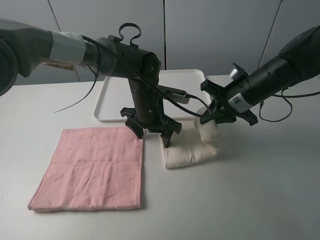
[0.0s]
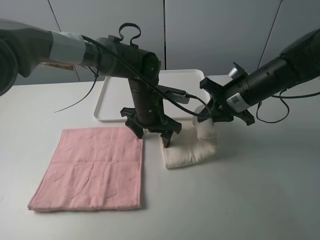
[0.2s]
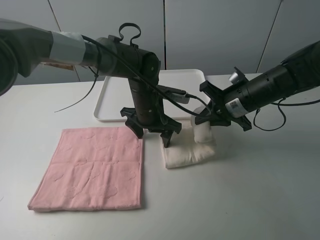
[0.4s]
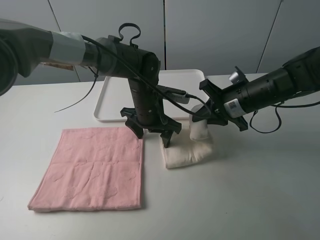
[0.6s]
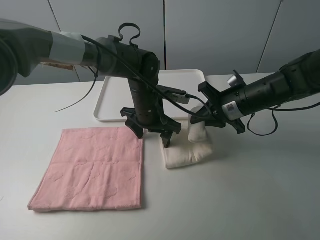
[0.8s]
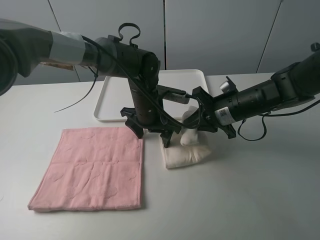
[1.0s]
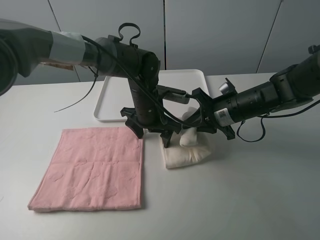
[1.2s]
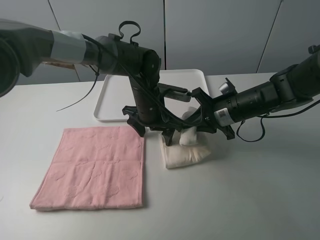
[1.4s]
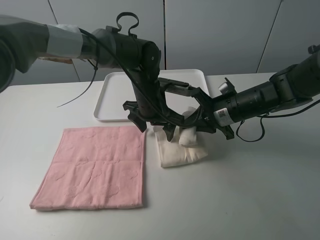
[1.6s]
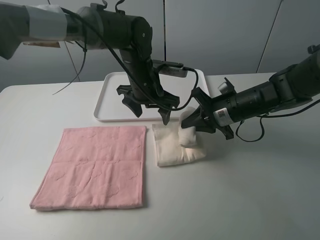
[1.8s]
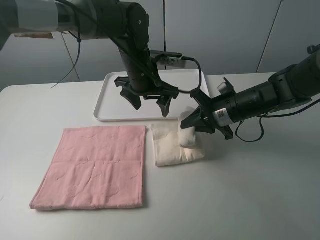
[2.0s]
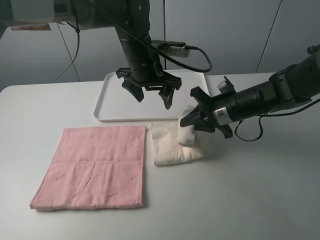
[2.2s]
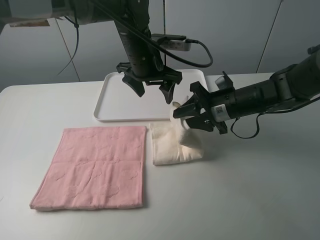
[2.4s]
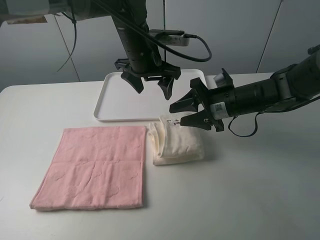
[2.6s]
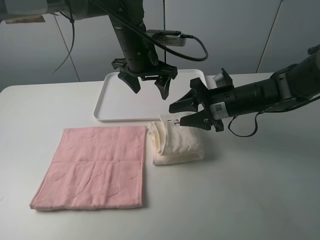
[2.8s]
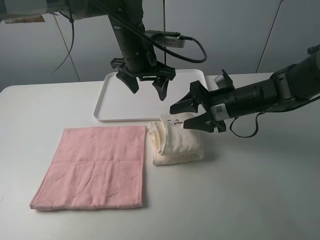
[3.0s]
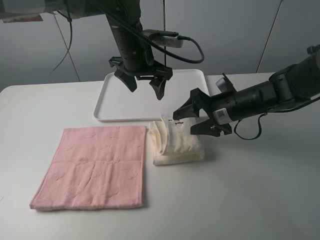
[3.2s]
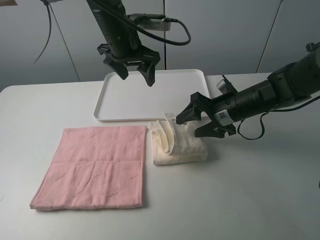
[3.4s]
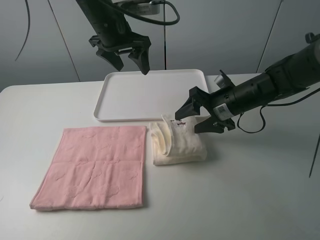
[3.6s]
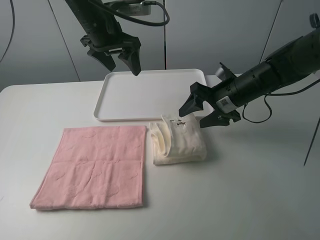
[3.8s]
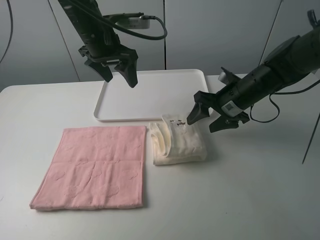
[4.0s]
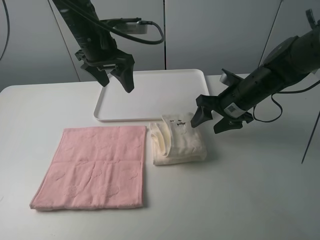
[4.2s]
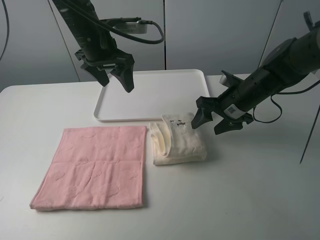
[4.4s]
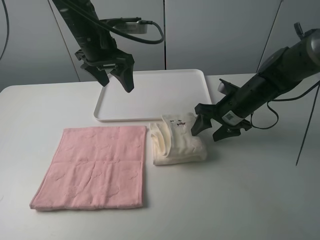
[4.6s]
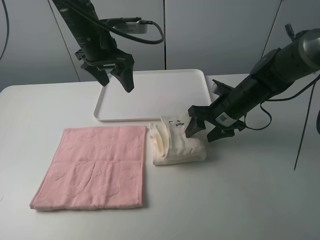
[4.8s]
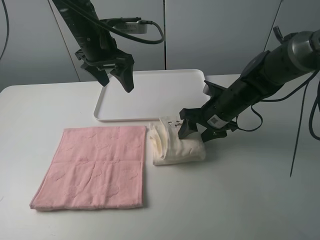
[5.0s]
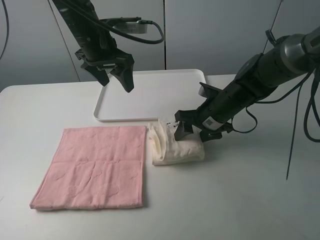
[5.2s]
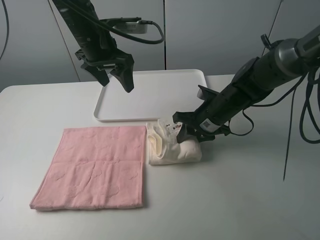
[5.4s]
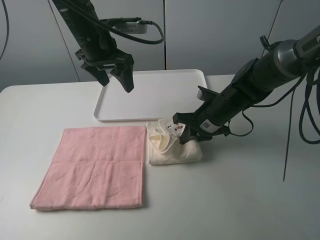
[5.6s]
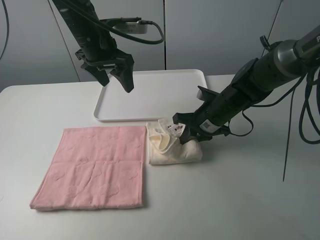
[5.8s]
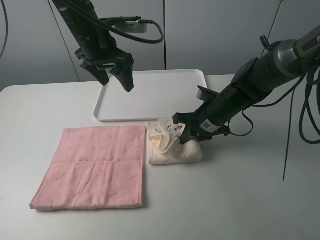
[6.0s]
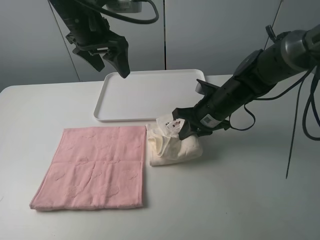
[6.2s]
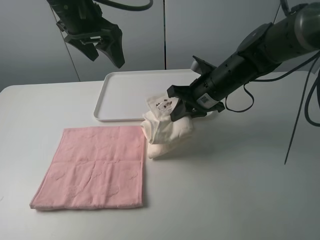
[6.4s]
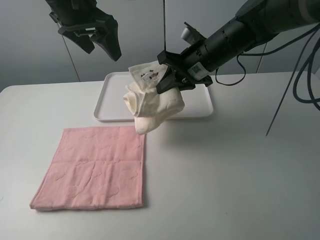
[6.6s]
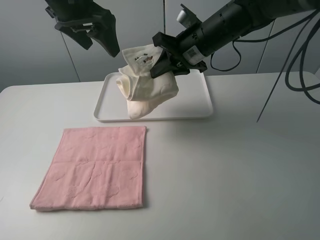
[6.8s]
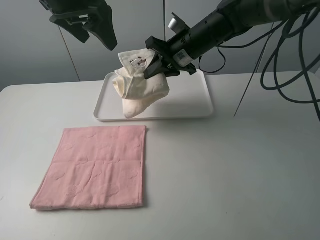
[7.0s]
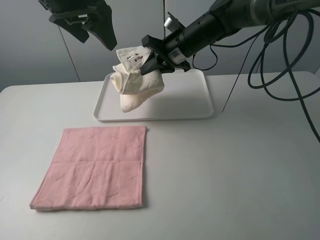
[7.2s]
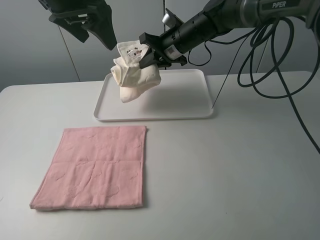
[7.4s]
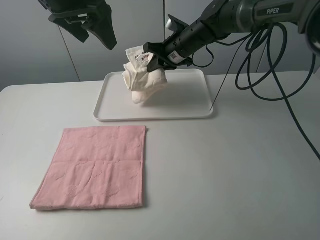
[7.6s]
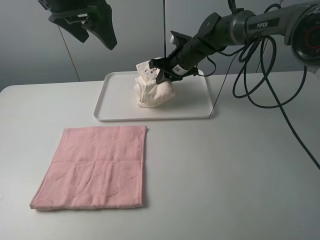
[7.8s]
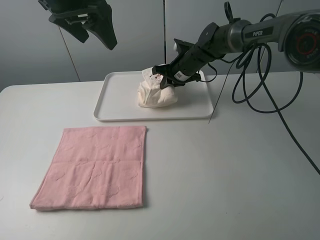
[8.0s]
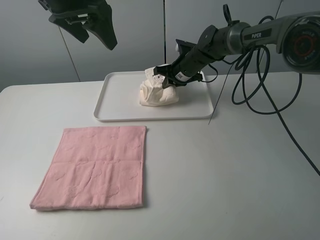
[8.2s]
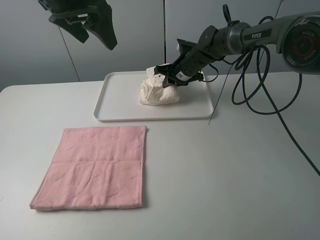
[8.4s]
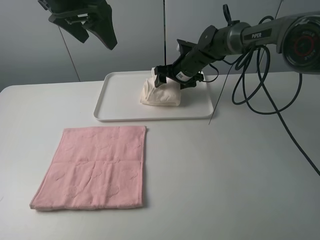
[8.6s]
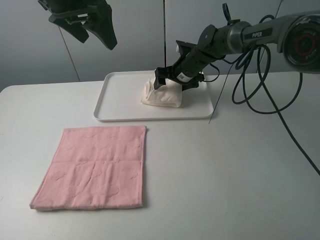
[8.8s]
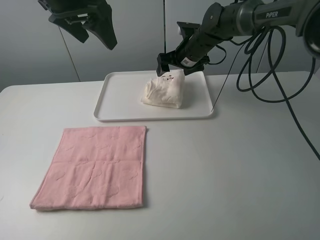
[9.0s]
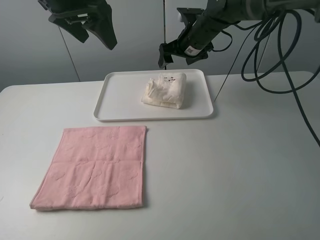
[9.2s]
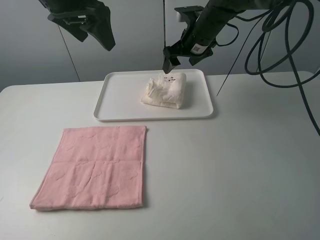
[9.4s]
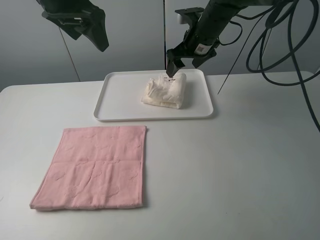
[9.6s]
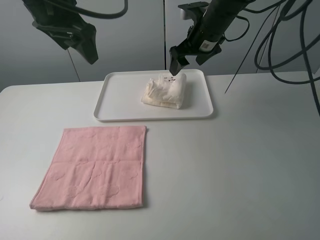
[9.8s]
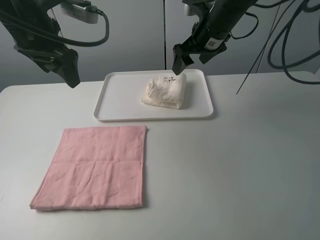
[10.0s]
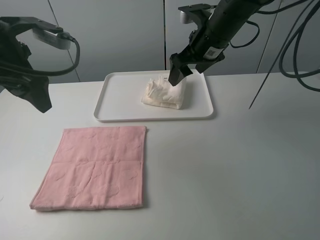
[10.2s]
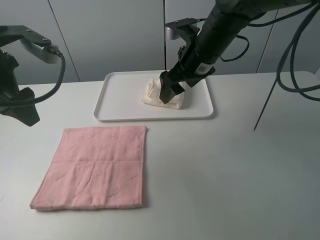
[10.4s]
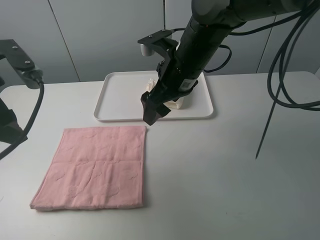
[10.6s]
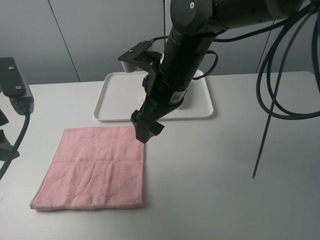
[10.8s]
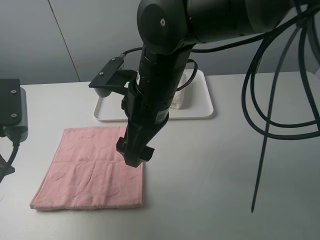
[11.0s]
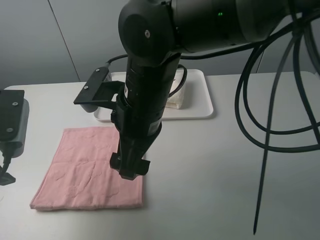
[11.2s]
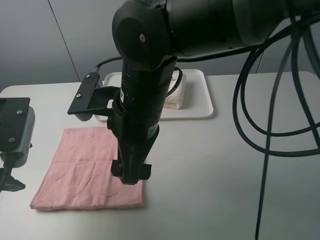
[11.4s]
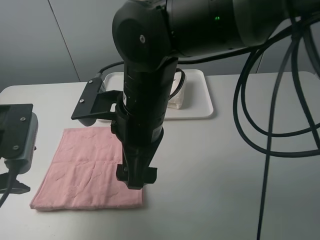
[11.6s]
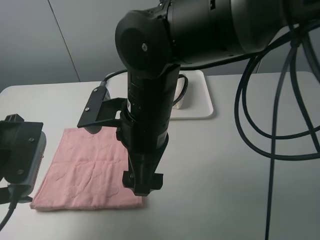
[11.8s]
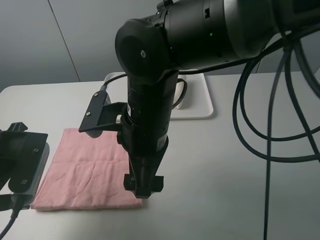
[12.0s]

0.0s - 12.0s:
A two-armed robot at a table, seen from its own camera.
Task of the whole recording: fold one of the towels by two grippers and place it on the tray,then fold another towel by two grippers and place it on the folded towel.
Step, 0.0s - 2.8s: Fold the white towel from right to left with right gripper.
Step, 3.0s - 5.6s: Grasp the white towel with the right gripper.
Step, 5.8s - 8.8s: Move the white towel to the plate with the right gripper.
0.0s - 1.6s: The grippers make only small movements.
1.6s - 3.0s: The right gripper opens. The left gripper shifts about 10 cm upward.
3.0s - 4.4s: The left gripper moves to the left, approximately 10 cm.
4.4s - 6.0s: The right gripper moves about 5 cm, and closes its fingers.
6.0s - 7.6s: The right gripper moves forward, upward and to the left, some 20 cm, while the left gripper shifts some 10 cm upward.
7.6s - 9.0s: The right gripper opens up.
9.0s - 10.4s: The right gripper heads backward, covering about 15 cm; the left gripper is displaced to the left, backward and downward by approximately 15 cm.
10.4s - 12.0s: The right gripper goes some 20 cm backward and to the left. The left gripper moves downward and backward, roughly 15 cm.

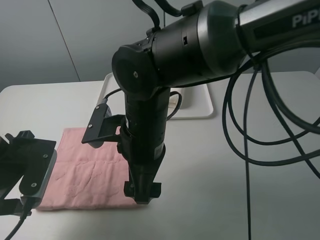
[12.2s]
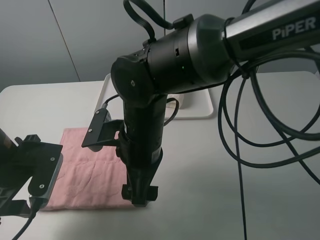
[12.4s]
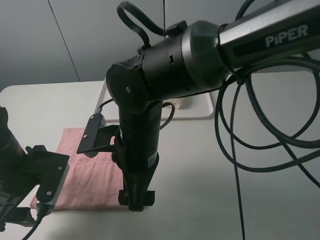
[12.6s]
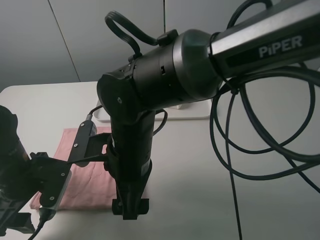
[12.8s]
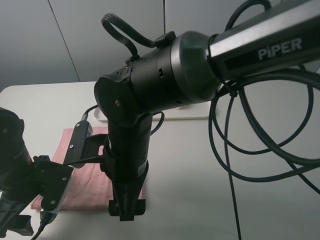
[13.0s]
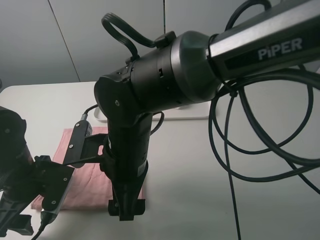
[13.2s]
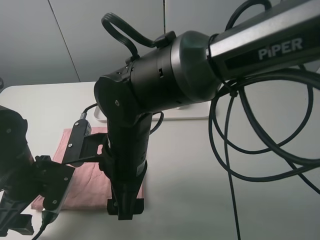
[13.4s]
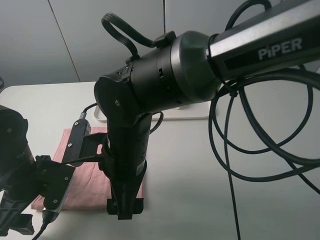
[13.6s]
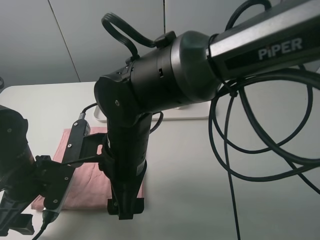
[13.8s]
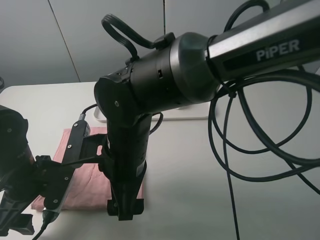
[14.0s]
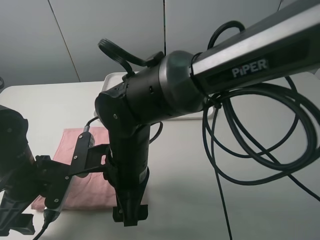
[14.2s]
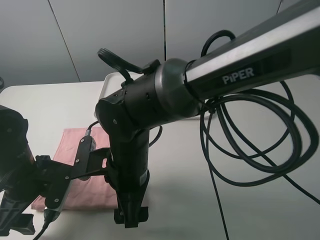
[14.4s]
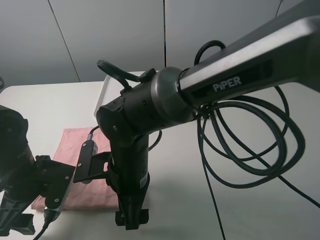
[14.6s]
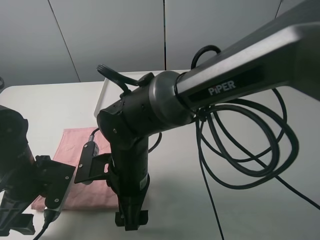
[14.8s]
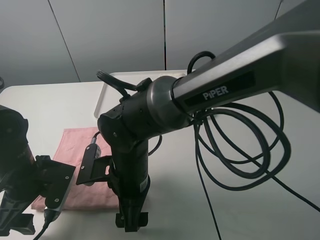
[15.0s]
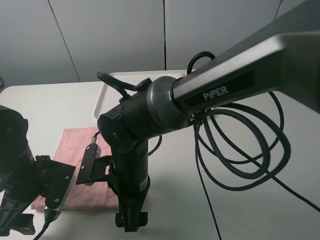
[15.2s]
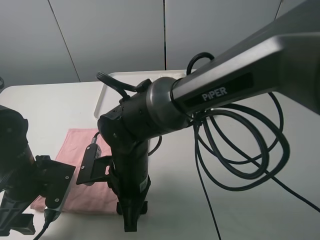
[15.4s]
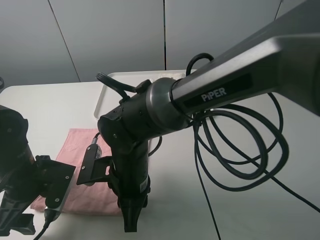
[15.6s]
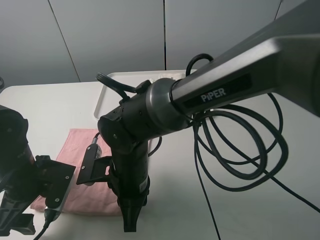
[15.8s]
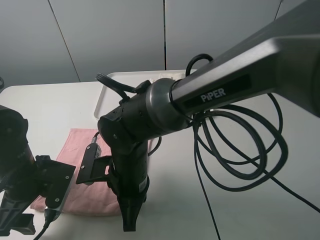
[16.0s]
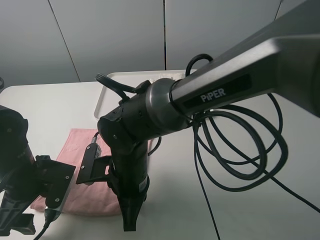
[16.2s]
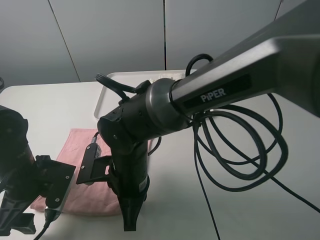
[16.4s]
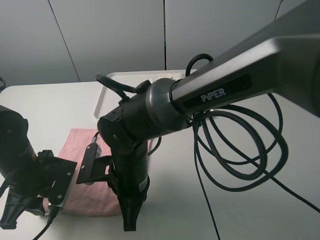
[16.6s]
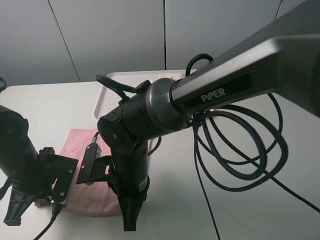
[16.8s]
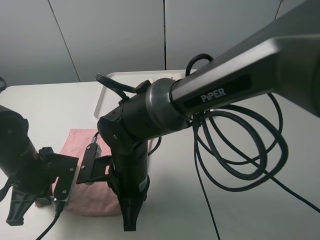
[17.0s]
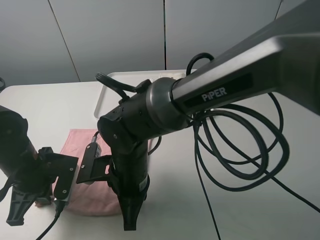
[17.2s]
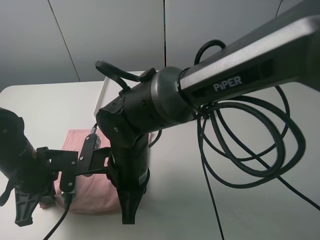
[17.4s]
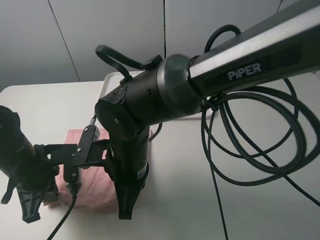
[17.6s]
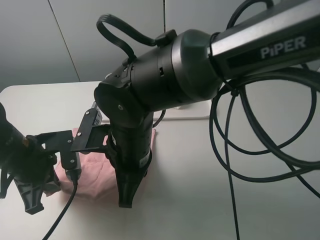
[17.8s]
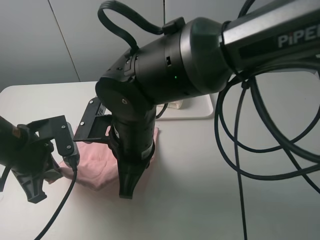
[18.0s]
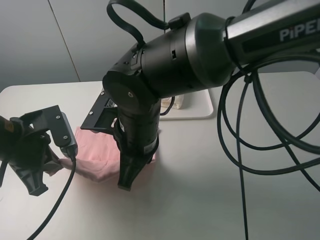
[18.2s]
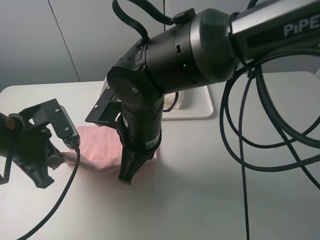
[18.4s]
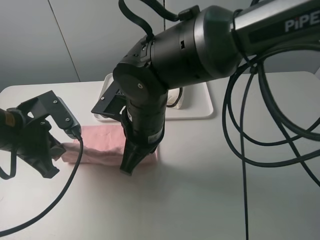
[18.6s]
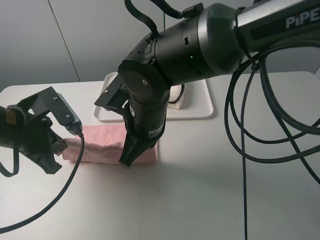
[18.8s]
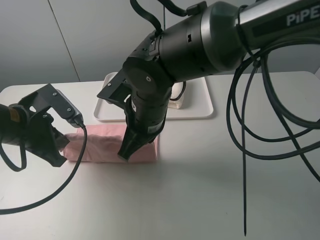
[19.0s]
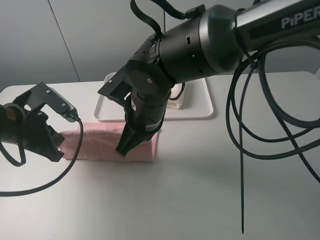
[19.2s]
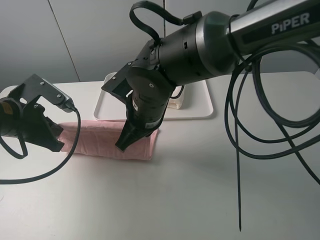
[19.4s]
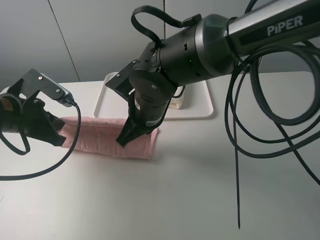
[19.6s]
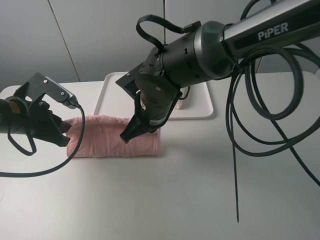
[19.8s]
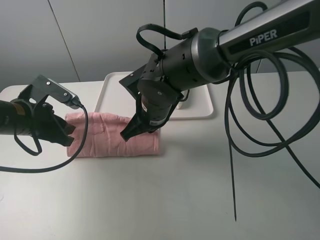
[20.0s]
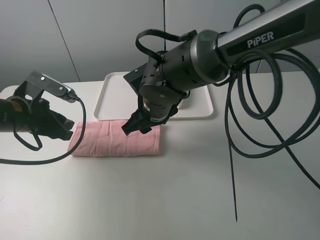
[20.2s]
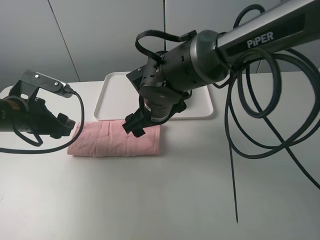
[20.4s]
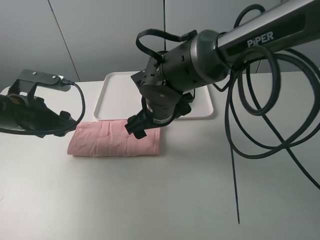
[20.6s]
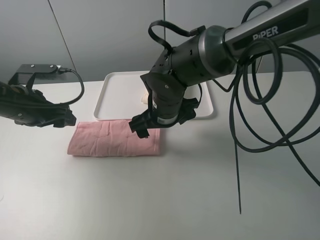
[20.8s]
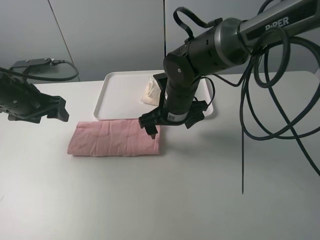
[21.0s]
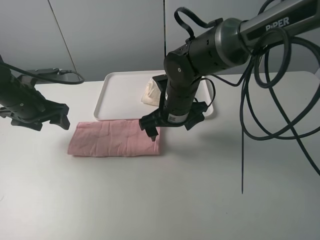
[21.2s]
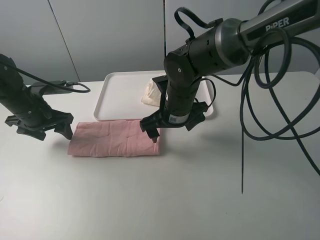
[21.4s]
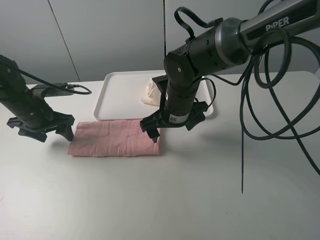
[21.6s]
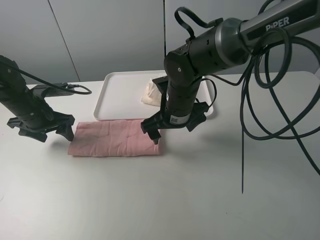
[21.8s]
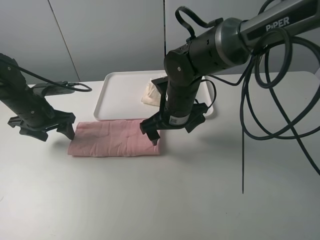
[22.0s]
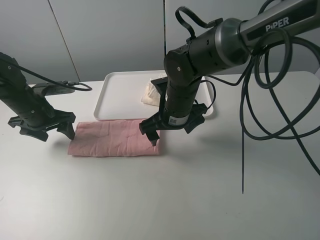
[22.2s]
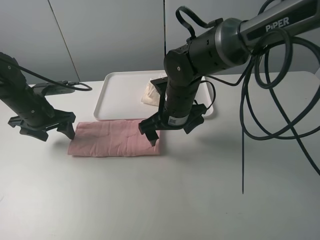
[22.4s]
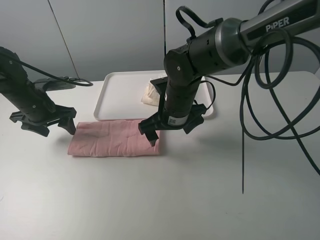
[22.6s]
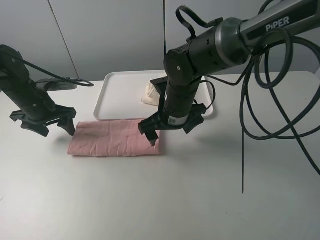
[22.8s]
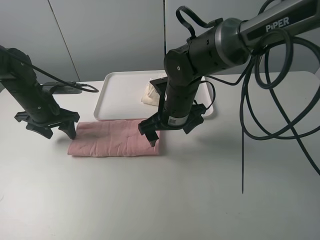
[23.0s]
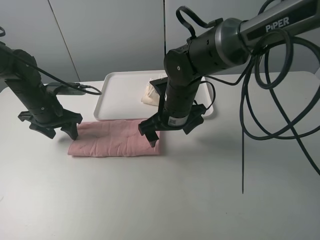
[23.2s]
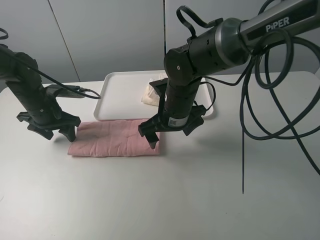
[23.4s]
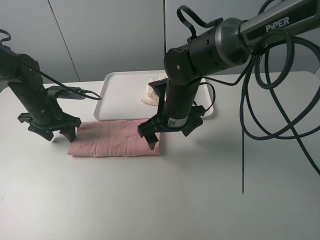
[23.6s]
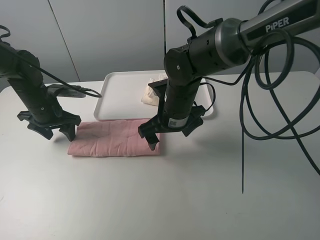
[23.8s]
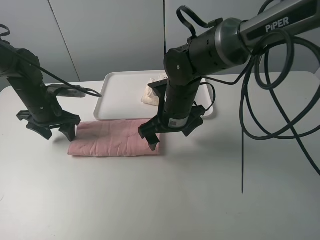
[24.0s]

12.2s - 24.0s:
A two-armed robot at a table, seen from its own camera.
Task of the whole recording: fold one of the towels by two grippers and place it on the tray,then fold another towel by two grippers and place it on the folded towel.
Step, 12.2s - 16.8s: Grasp the pink towel with the left gripper.
Step, 17.0s - 20.2s: Fold the pink towel upwards with the left gripper.
12.2s - 13.6s: The left gripper travels downward by some 5 cm.
13.6s - 15.2s: The right gripper goes about 5 cm downward.
15.2s - 16.6s: The right gripper closes. The left gripper closes up.
16.6s - 18.2s: The two grippers go approximately 10 cm upward. The left gripper closes its fingers.
18.2s - 19.6s: The right gripper goes some 5 cm forward. Meanwhile the left gripper ends up about 5 cm from where it was.
19.6s - 21.0s: The left gripper shifts some 5 cm forward, and opens, while the right gripper goes some 5 cm to the right, and opens up.
21.0s - 22.6s: The left gripper moves some 5 cm.
22.6s - 24.0s: The grippers move only a little.
